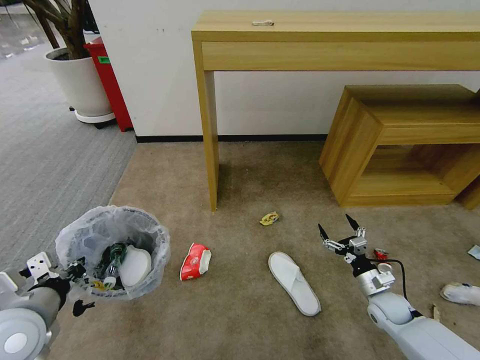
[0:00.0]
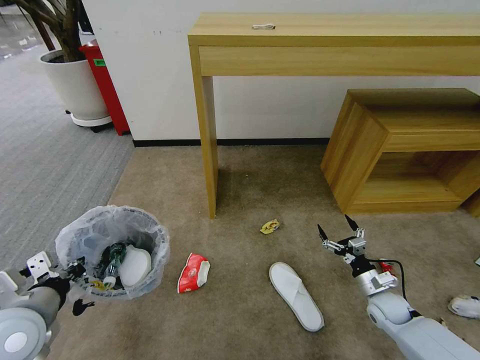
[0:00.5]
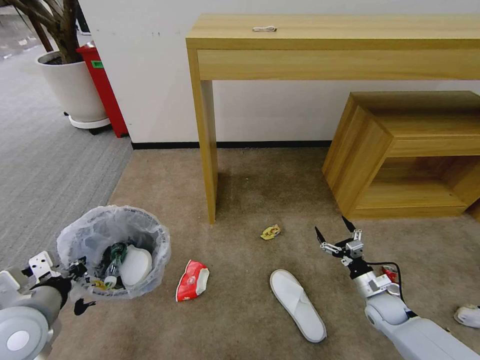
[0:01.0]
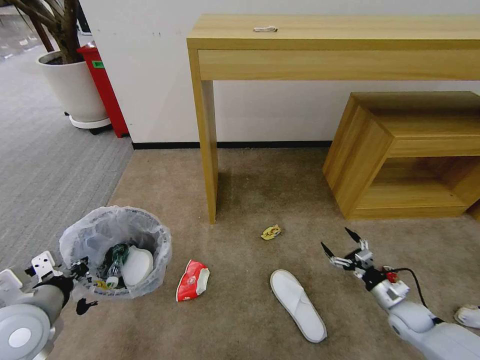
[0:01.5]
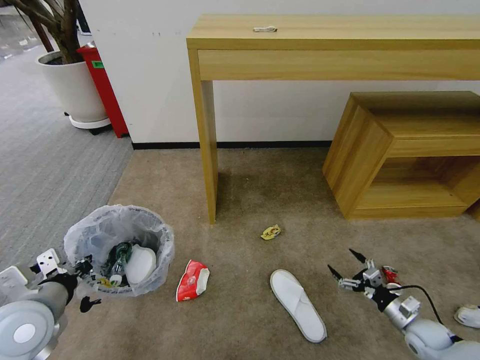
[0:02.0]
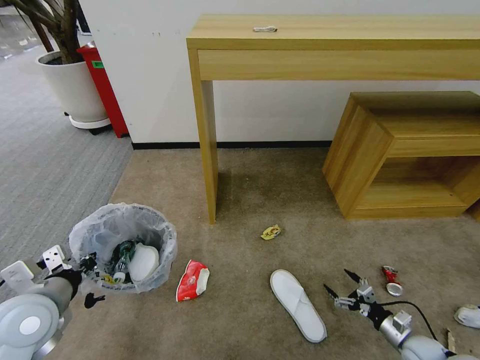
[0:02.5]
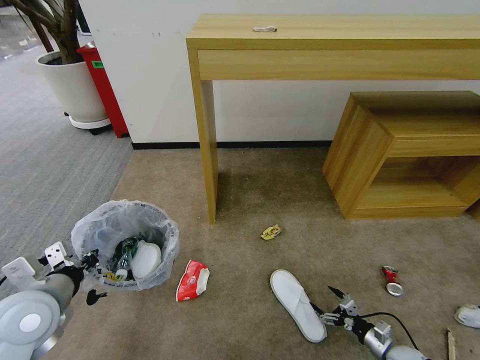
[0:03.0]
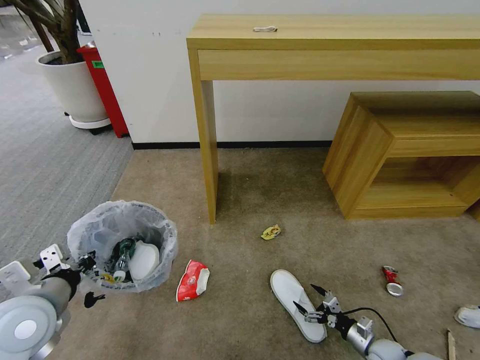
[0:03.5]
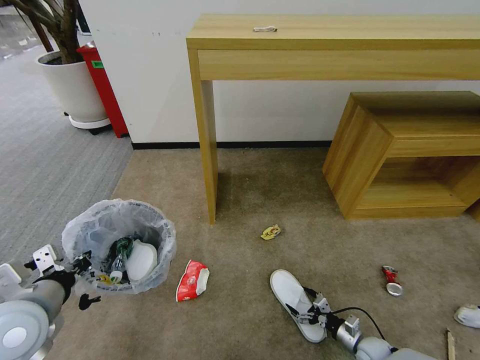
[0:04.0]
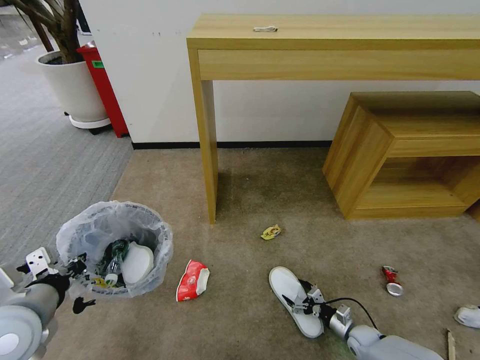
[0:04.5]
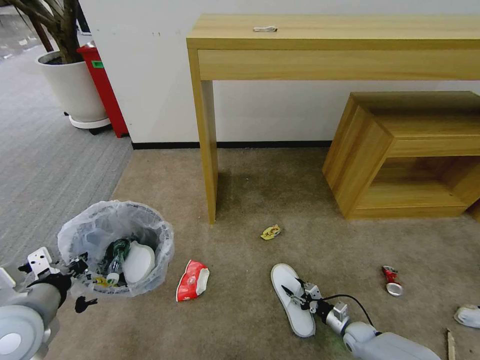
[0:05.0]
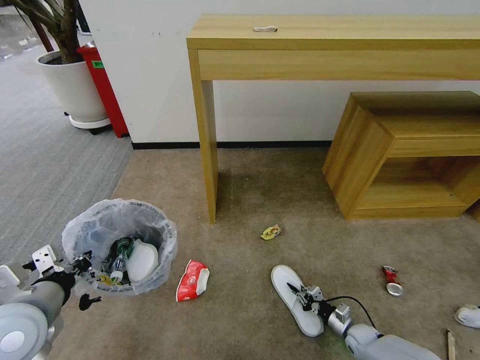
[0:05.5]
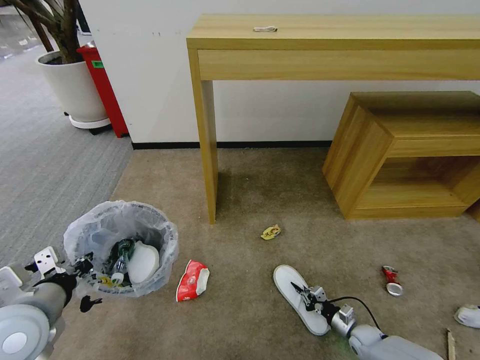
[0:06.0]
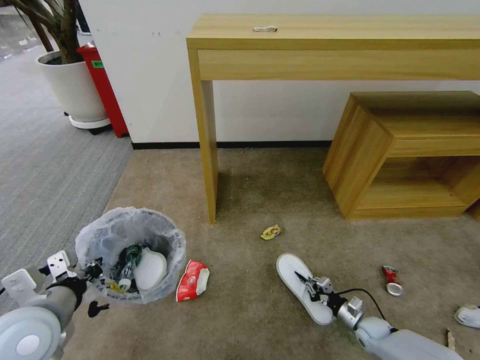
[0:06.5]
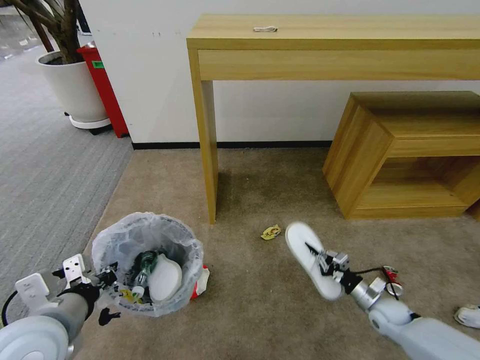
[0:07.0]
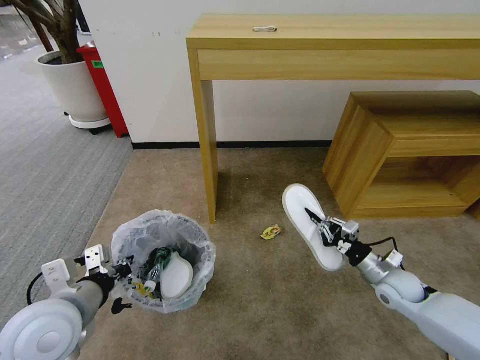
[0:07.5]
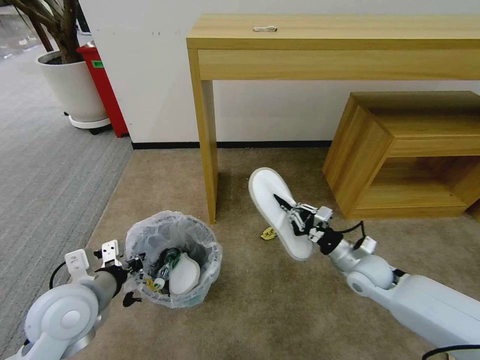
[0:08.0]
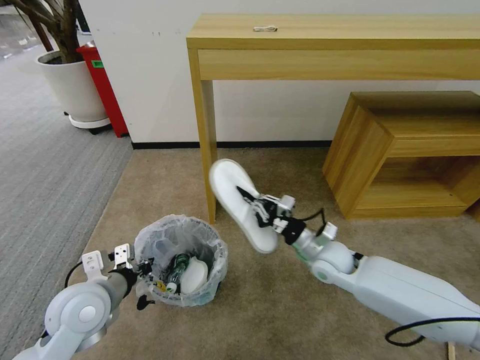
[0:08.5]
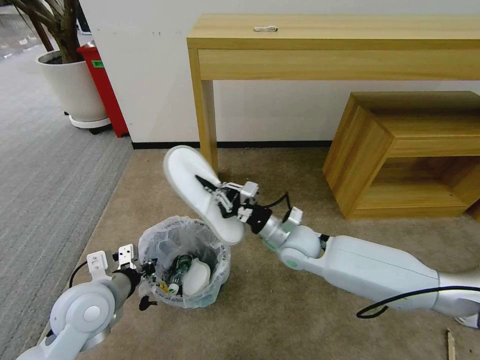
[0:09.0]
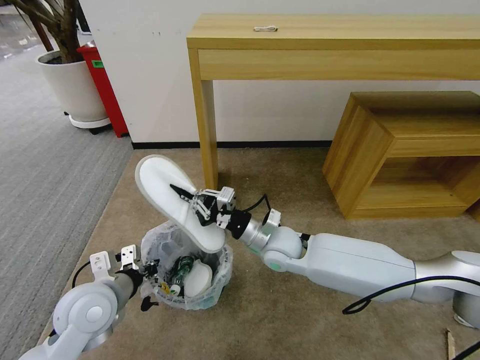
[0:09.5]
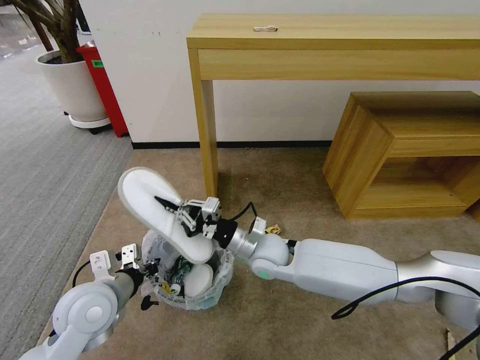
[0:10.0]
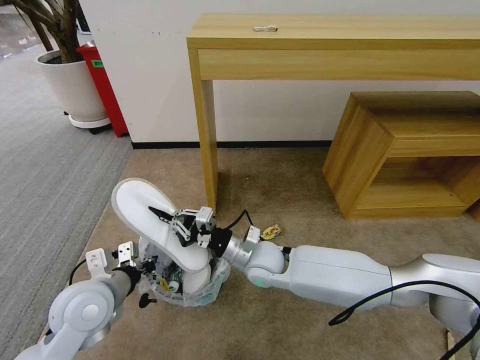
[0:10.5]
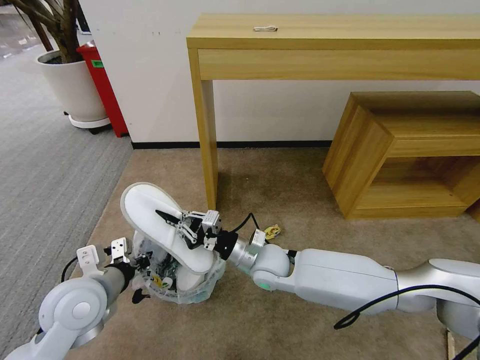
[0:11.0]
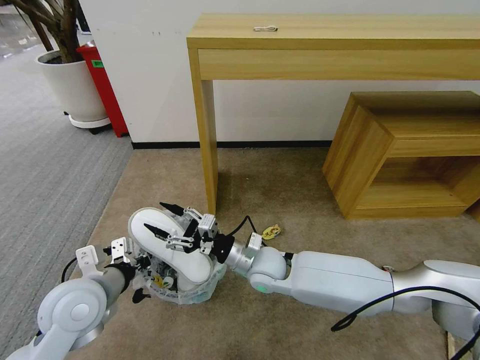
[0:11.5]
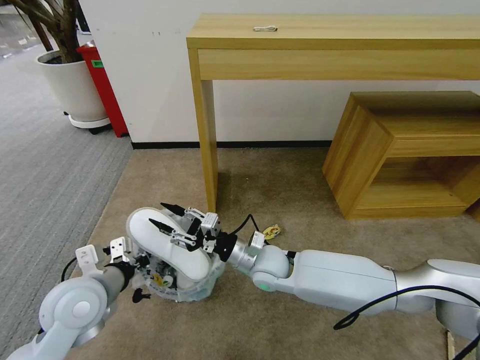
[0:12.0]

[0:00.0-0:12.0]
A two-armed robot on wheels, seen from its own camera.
Task of the whole recording: Pick up the trash bin and place the garbage on the floor into it.
0:00.0 to 0:02.0: The right gripper goes about 10 cm to the right and backward.
0:02.0 to 0:04.0: The right gripper travels downward and to the left by some 15 cm.
0:04.0 to 0:06.0: The right gripper closes up.
0:06.0 to 0:08.0: The left gripper shifts by approximately 5 cm; the right gripper heads upward, covering roughly 30 cm.
0:08.0 to 0:10.0: The right gripper shifts about 25 cm to the left.
0:10.0 to 0:12.0: The right gripper opens.

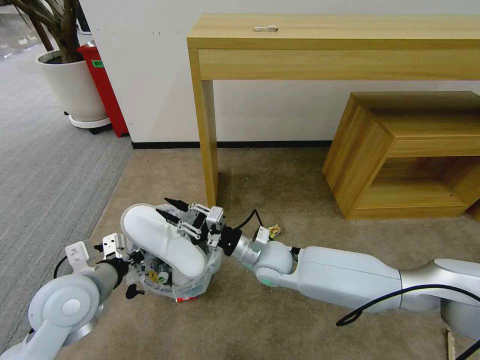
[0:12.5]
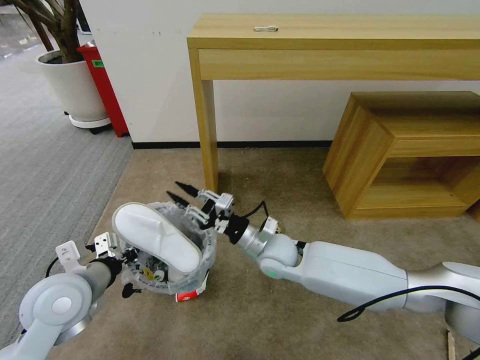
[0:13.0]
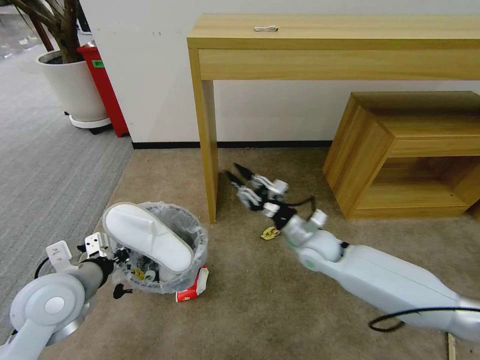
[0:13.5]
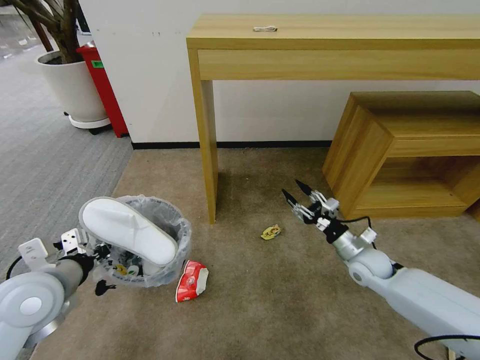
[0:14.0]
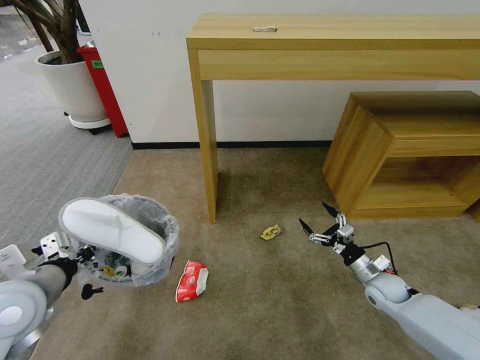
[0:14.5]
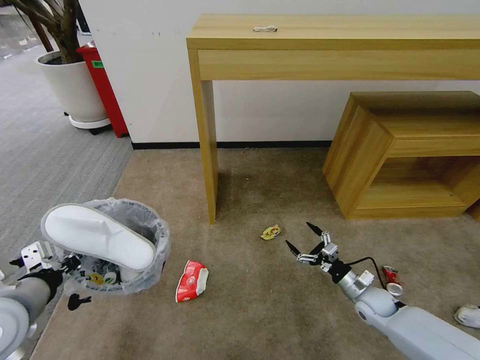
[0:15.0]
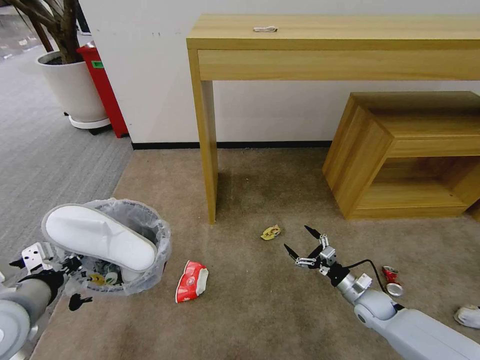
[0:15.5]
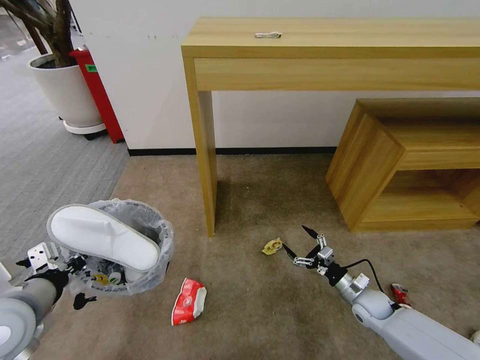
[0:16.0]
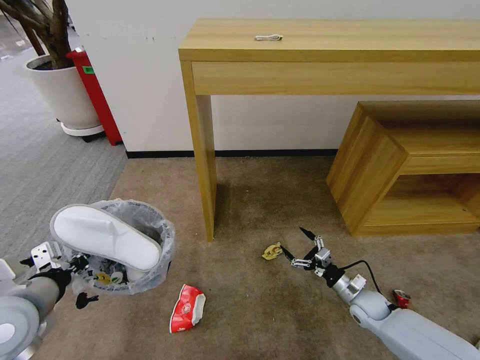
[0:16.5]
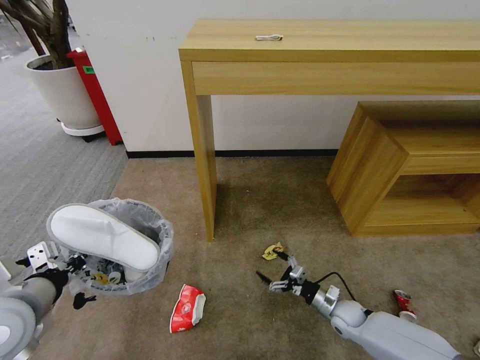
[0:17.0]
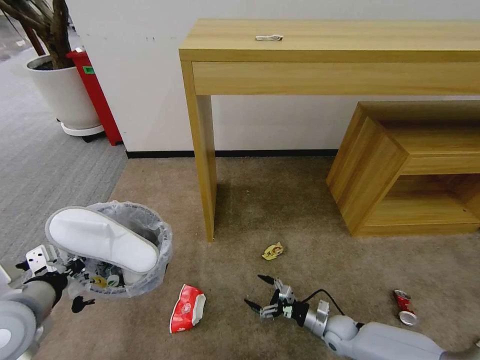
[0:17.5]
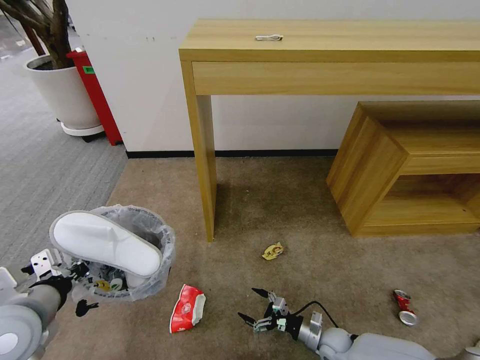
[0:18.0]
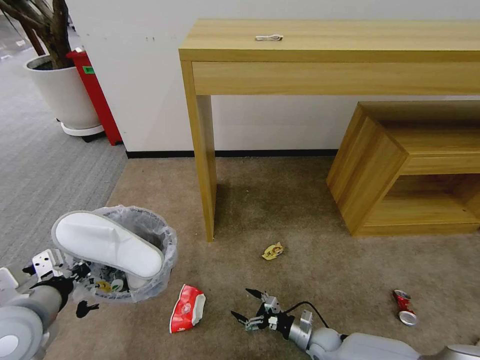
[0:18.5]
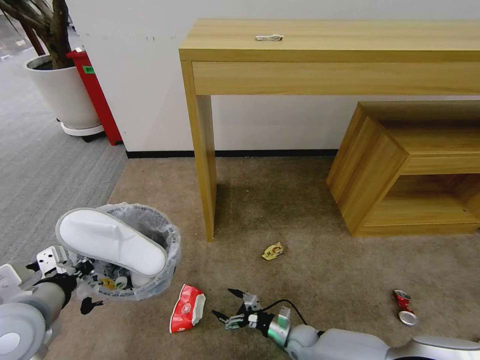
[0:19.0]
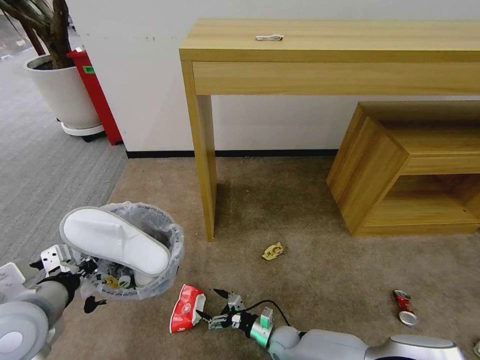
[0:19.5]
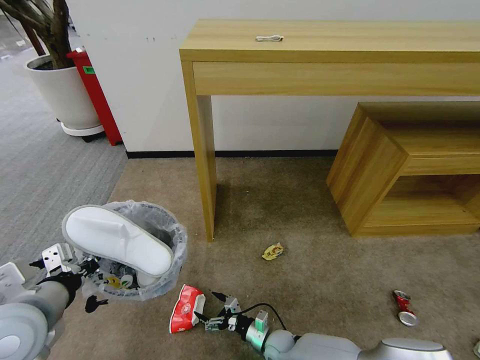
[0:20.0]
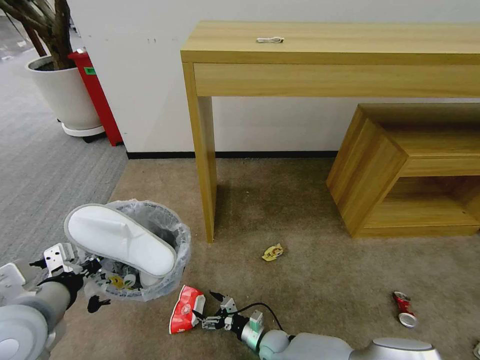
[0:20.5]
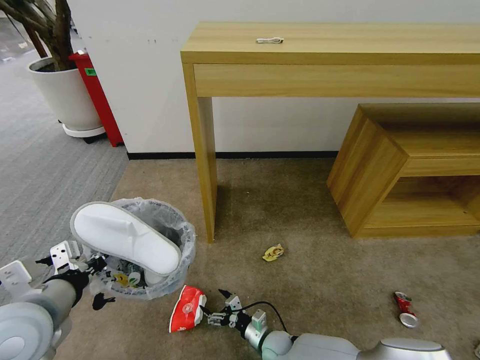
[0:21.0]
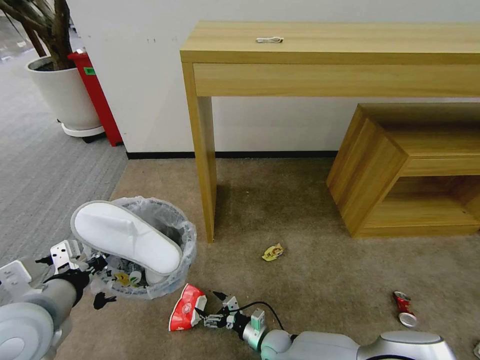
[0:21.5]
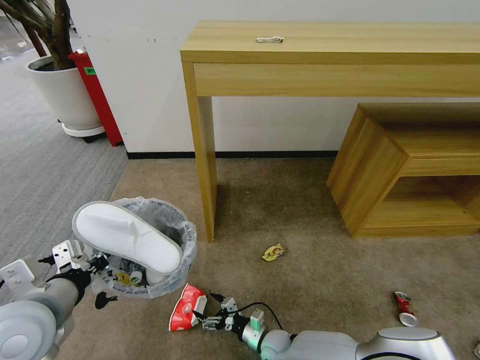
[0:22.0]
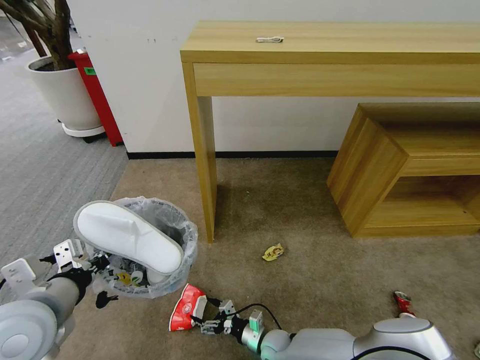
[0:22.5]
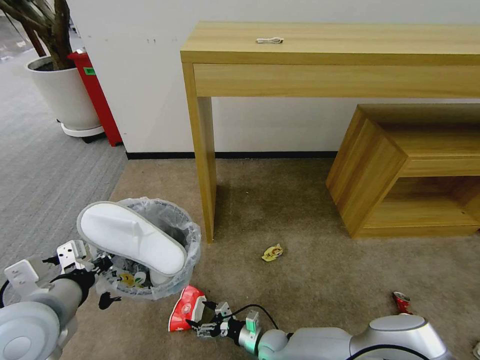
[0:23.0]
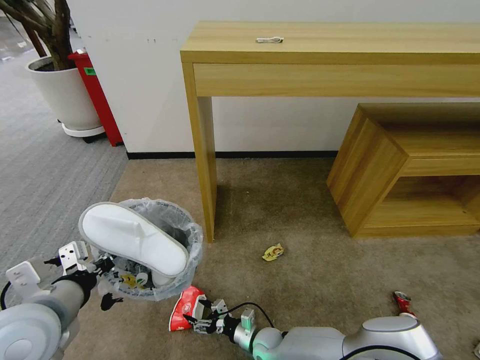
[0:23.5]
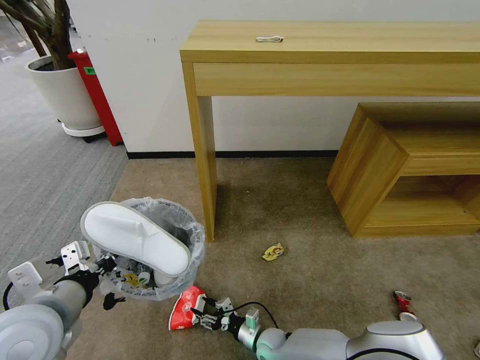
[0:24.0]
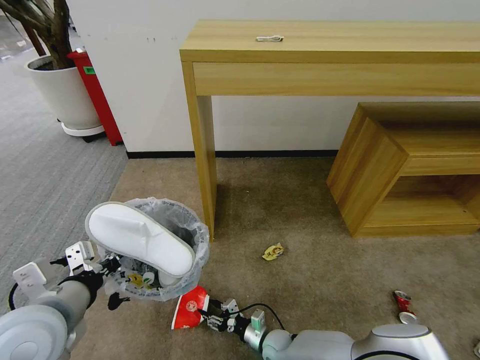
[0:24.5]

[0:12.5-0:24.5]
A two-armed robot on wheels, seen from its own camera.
Task of the whole recording: Pick up the trash bin and place the garbage on the floor into it.
0:12.5 to 0:14.5: The right gripper heads to the right, covering some 30 cm, and opens; the left gripper is displaced to the left by some 5 cm.
0:14.5 to 0:16.5: The right gripper shifts some 5 cm downward.
0:16.5 to 0:18.5: The right gripper goes approximately 15 cm to the left, downward and backward.
0:18.5 to 0:20.5: The right gripper heads to the left, covering roughly 15 cm.
0:20.5 to 0:22.5: There are only small adjustments of the grippers.
0:22.5 to 0:24.5: The right gripper closes up.

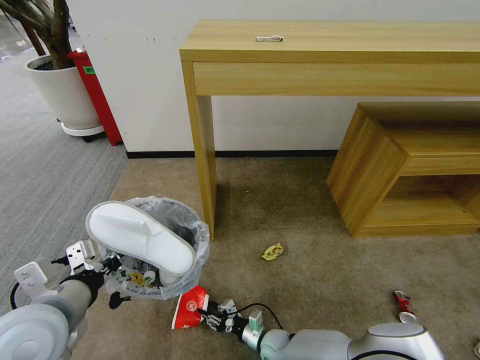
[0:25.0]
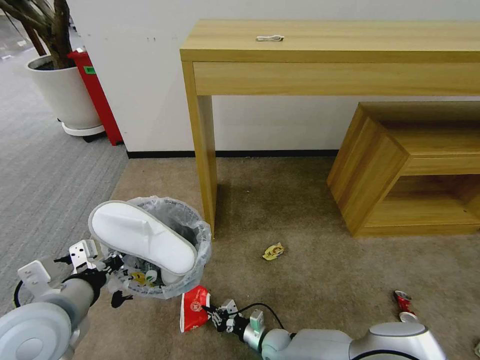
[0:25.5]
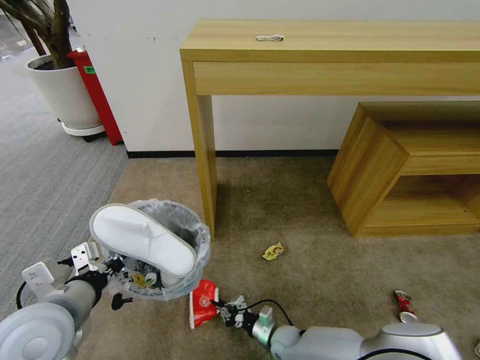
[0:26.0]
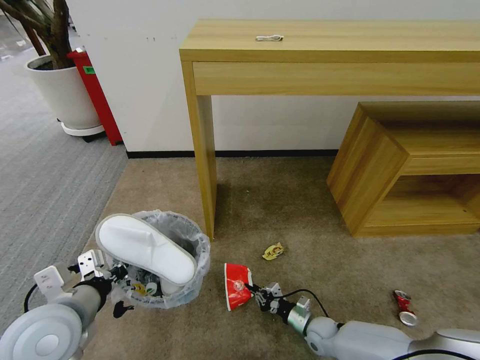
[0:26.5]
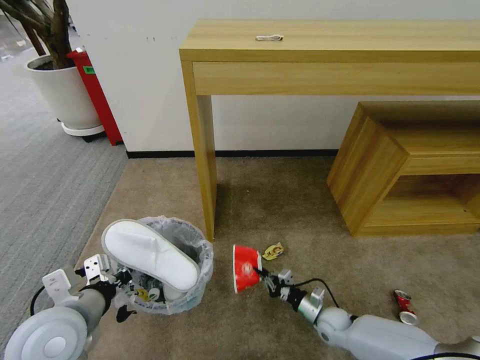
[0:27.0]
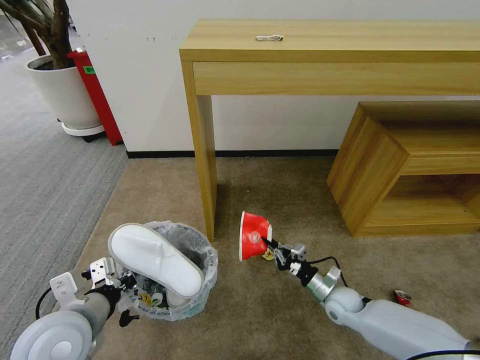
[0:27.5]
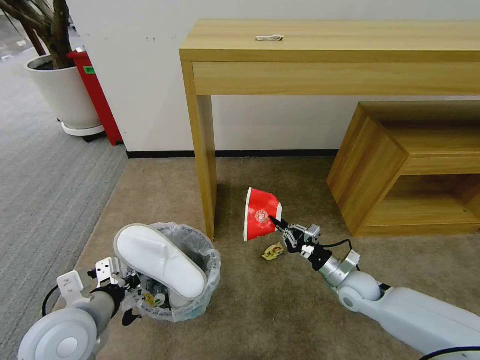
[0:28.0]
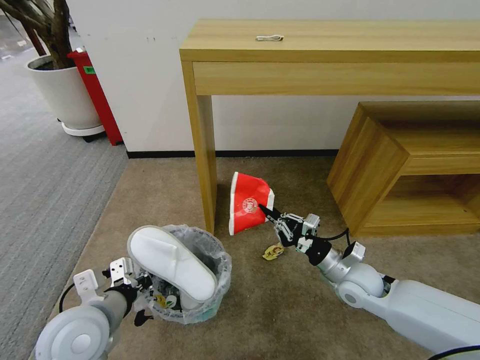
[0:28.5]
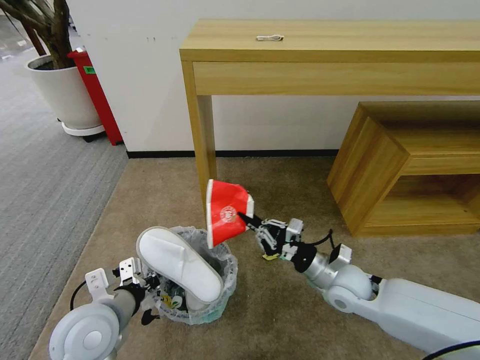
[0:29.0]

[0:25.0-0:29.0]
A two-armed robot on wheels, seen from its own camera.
Task of the whole recording: Pick up the trash bin and place the garbage on the floor into it.
0:25.0 to 0:27.0: The right gripper is displaced to the right by roughly 15 cm, and closes its fingers.
0:27.0 to 0:29.0: The right gripper goes some 20 cm upward.
